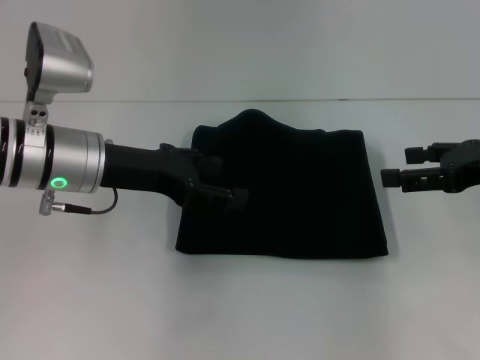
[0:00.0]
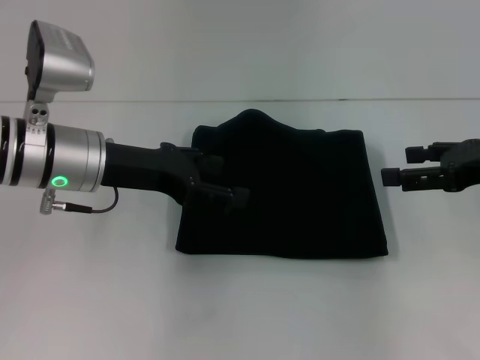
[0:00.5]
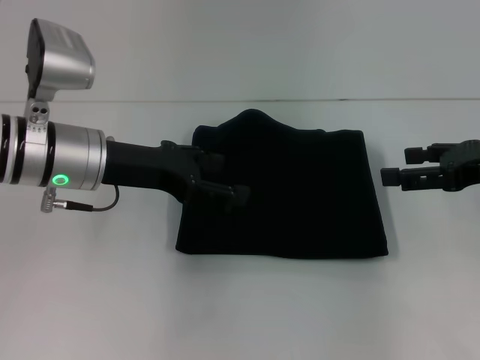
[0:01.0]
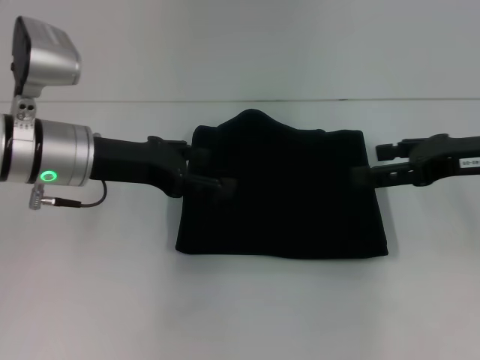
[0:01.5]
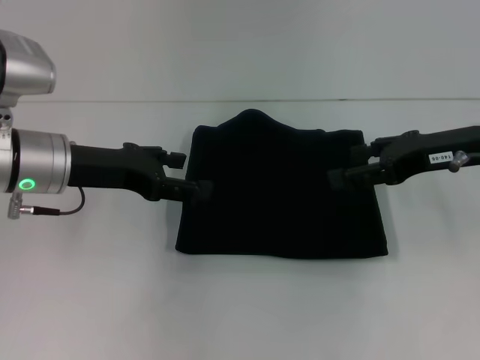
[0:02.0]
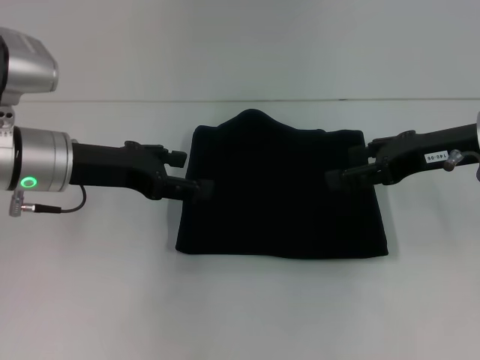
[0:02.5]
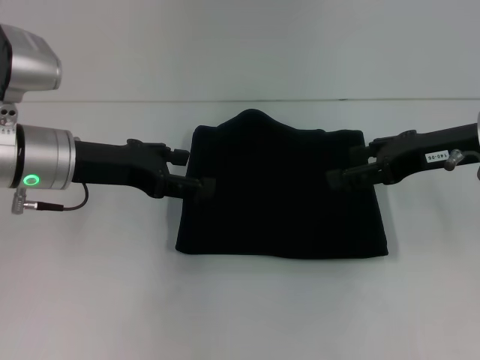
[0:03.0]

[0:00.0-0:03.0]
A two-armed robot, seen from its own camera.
0:00.0 to 0:01.5: The grippers move only a little.
0:01.5 to 0:03.0: The grippers stay close to where they were, moving slightly.
